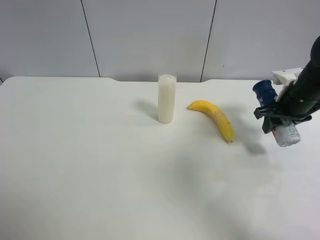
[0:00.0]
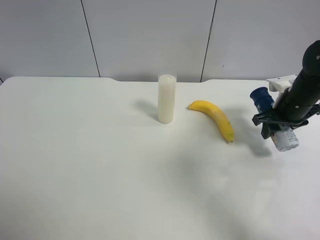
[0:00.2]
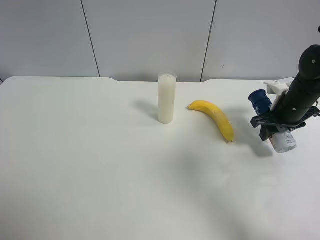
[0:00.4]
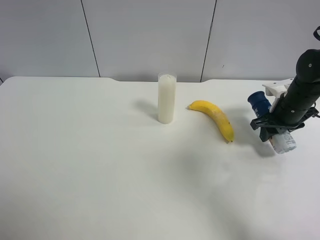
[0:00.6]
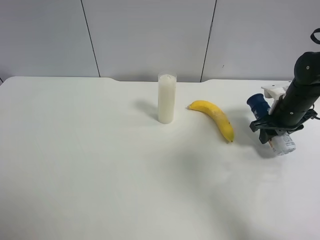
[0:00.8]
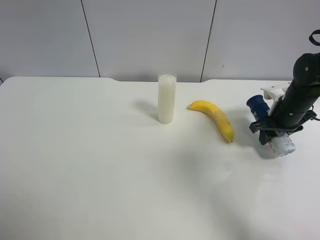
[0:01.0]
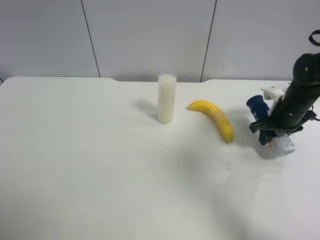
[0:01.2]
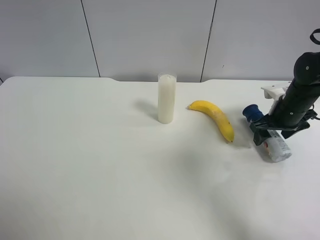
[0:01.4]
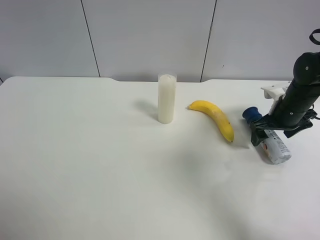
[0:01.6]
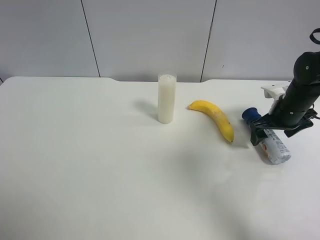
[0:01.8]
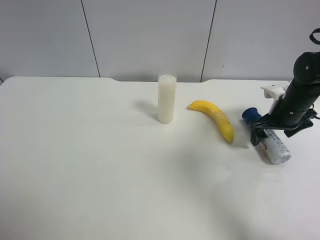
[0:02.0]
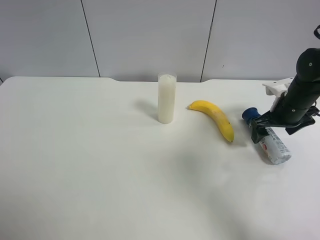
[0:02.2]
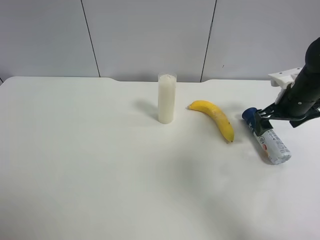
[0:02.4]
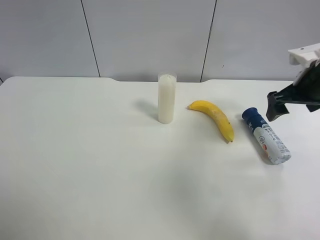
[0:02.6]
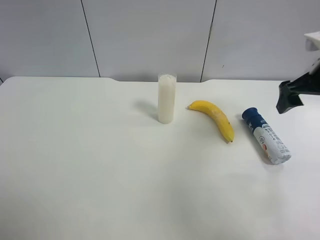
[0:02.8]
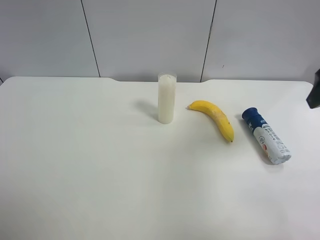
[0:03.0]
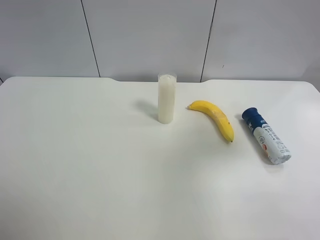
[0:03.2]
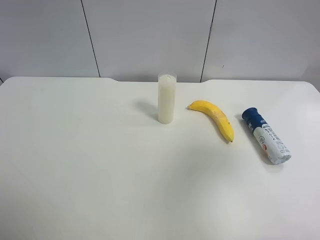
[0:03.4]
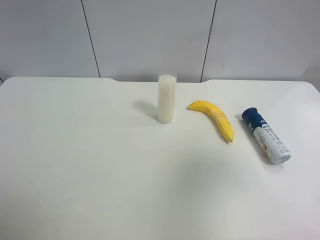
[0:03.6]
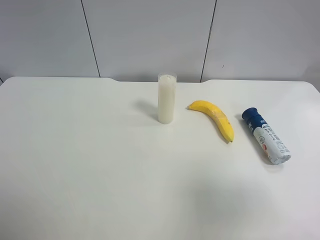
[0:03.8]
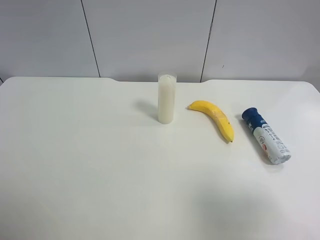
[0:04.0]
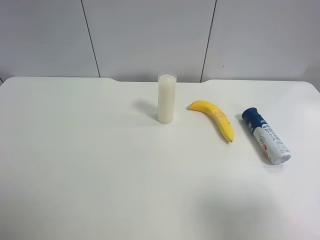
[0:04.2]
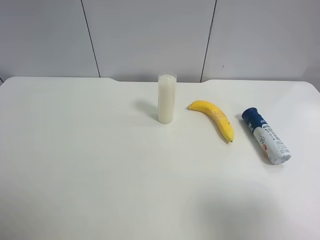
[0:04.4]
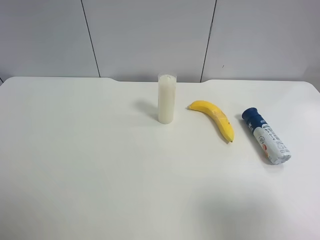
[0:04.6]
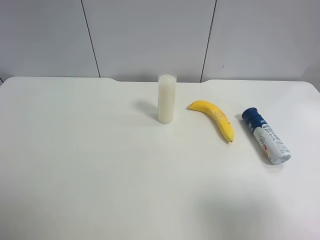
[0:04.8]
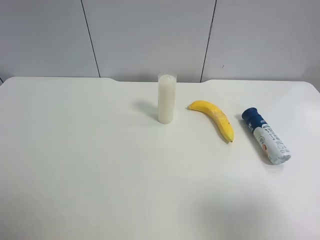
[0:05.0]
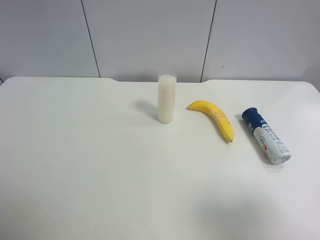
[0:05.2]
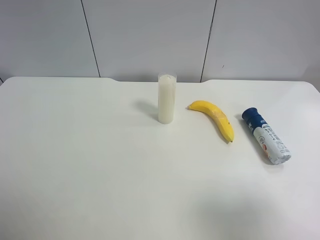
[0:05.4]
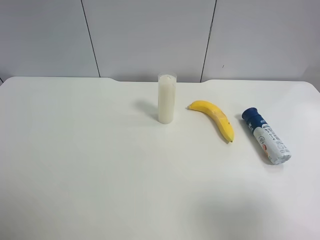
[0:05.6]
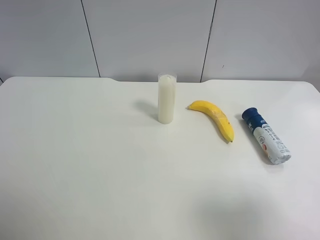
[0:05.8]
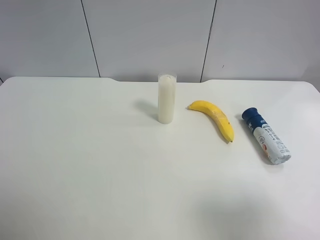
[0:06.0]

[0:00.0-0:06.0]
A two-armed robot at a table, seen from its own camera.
Task of the whole recording: use the left gripper to pick up the item and transfer it from the left gripper to the right gripper.
0:00.0 to 0:01.6: The right gripper opens its fingers.
0:01.6 to 0:03.0: The right gripper moves upward and backward, some 25 cm.
0:03.0 to 0:04.4: The right gripper goes about 20 cm backward.
